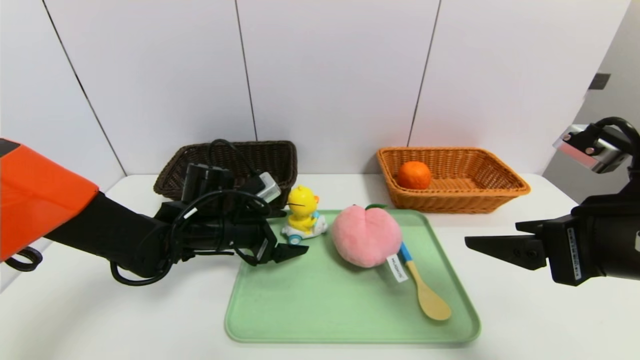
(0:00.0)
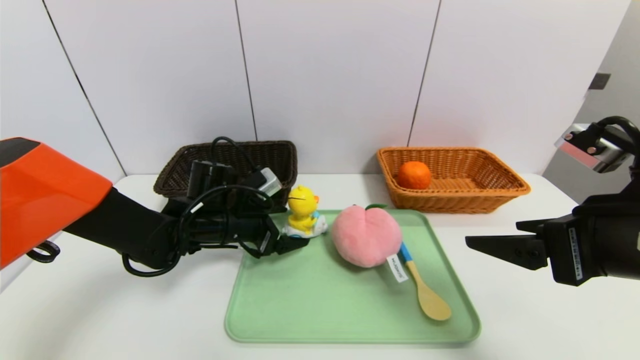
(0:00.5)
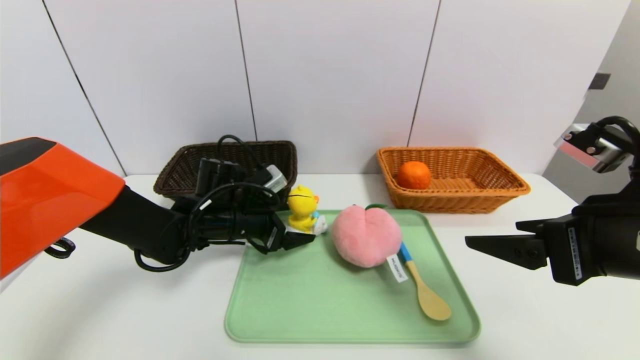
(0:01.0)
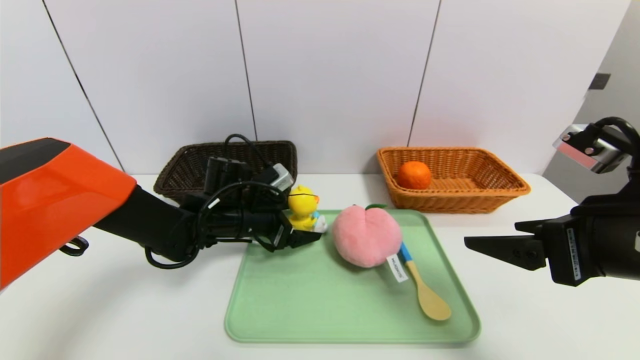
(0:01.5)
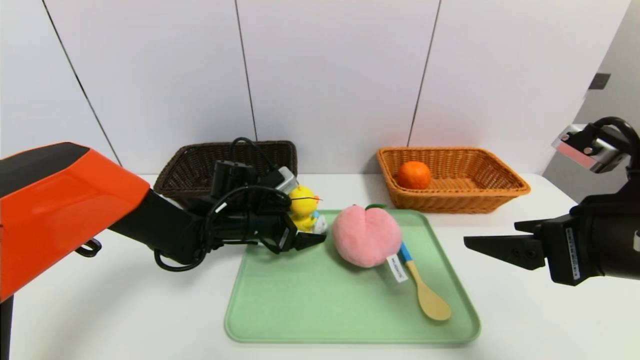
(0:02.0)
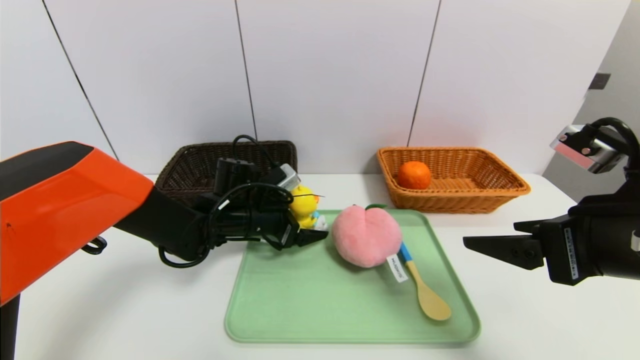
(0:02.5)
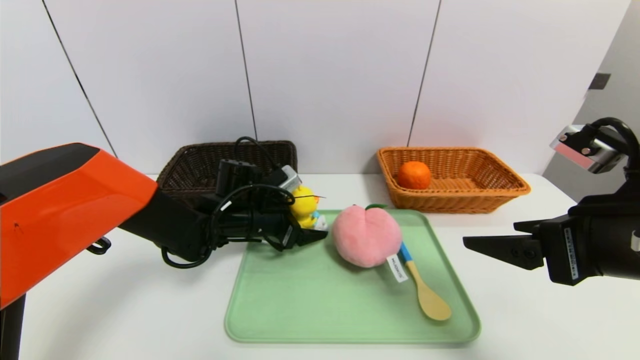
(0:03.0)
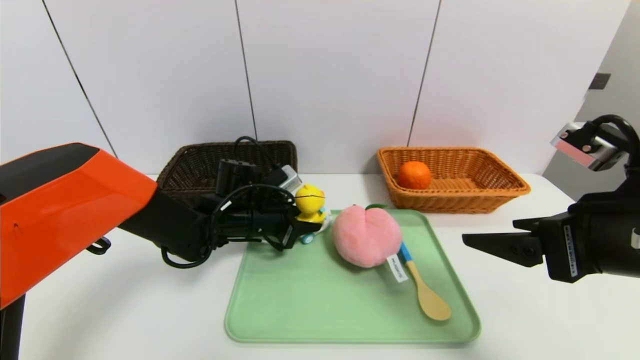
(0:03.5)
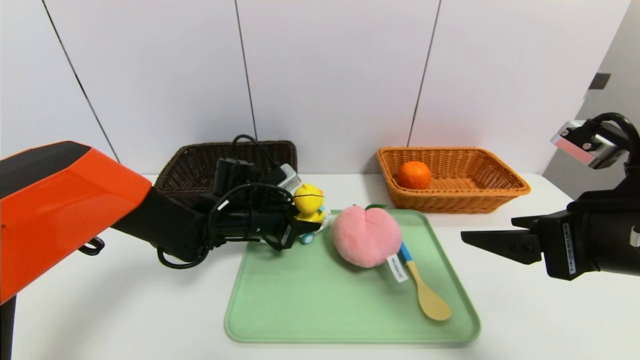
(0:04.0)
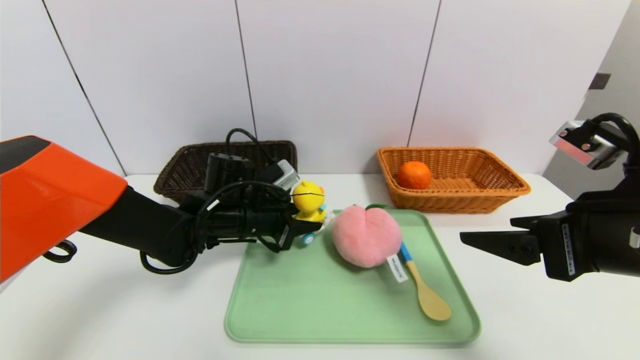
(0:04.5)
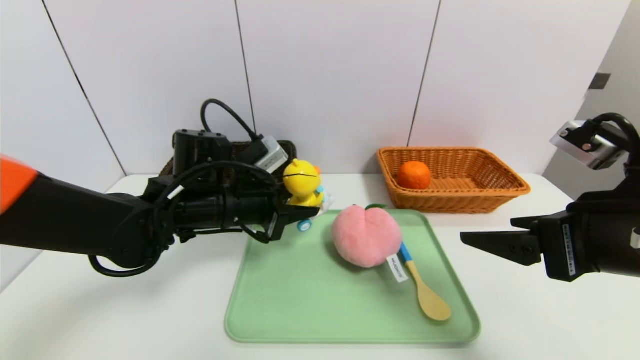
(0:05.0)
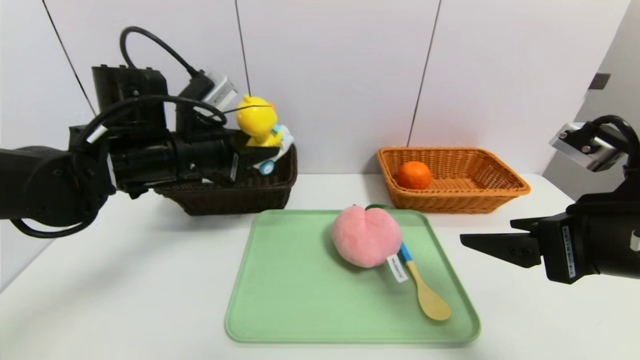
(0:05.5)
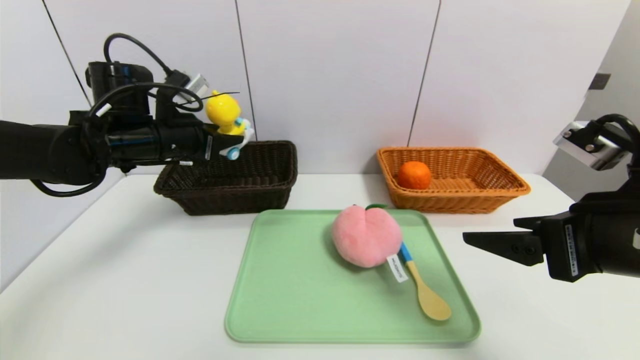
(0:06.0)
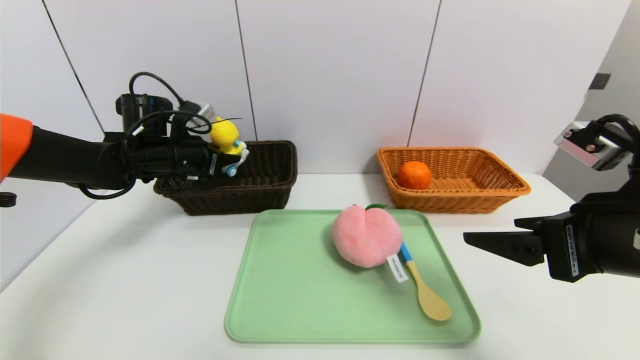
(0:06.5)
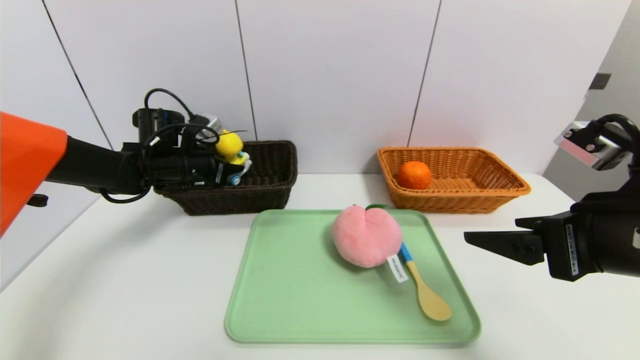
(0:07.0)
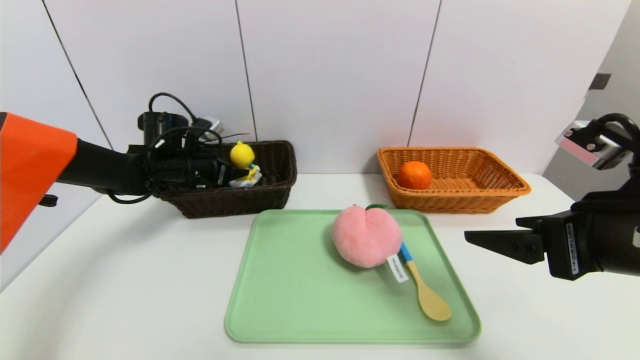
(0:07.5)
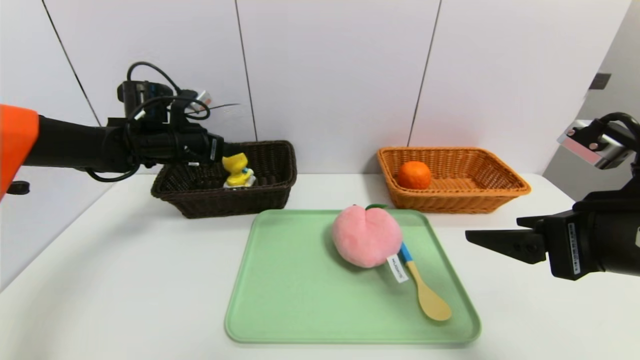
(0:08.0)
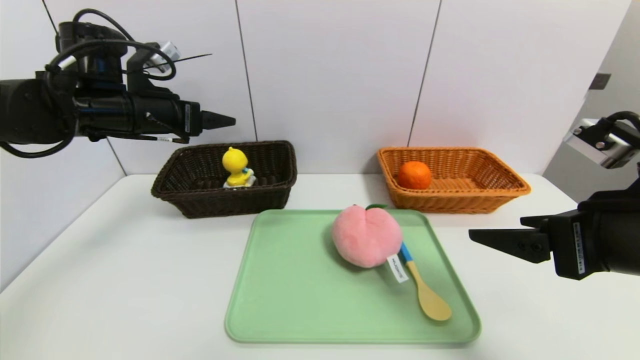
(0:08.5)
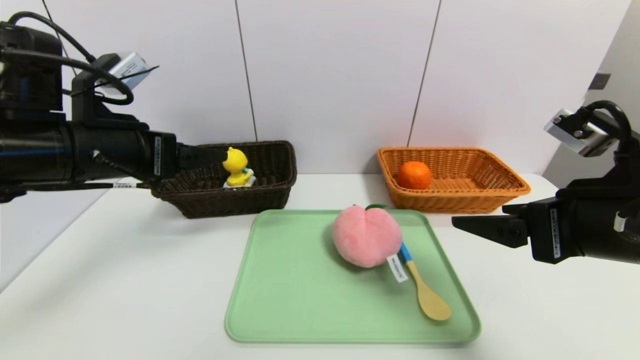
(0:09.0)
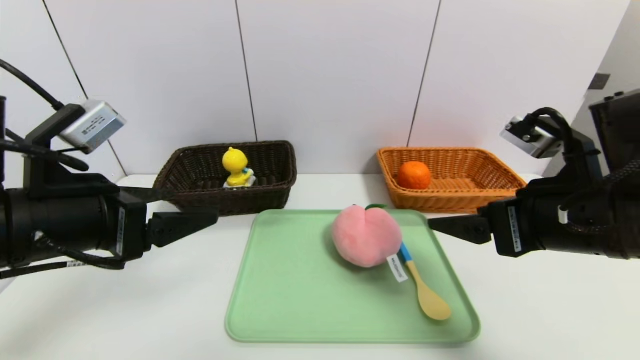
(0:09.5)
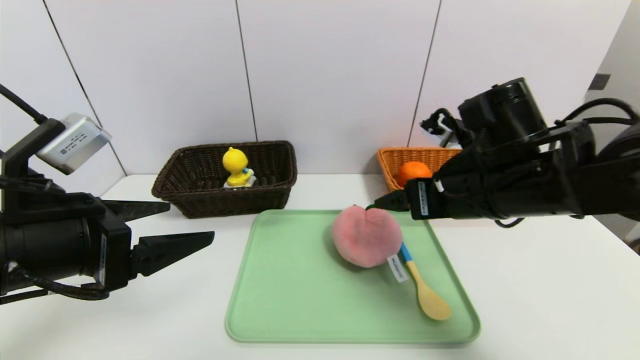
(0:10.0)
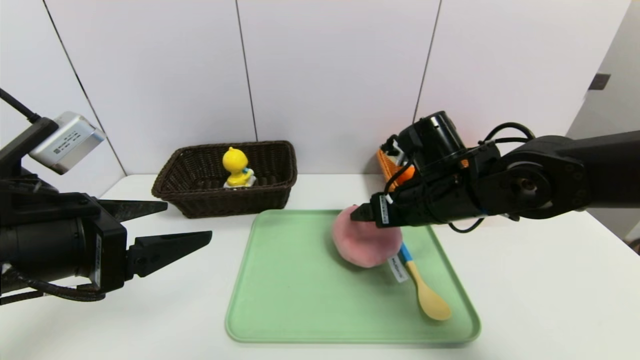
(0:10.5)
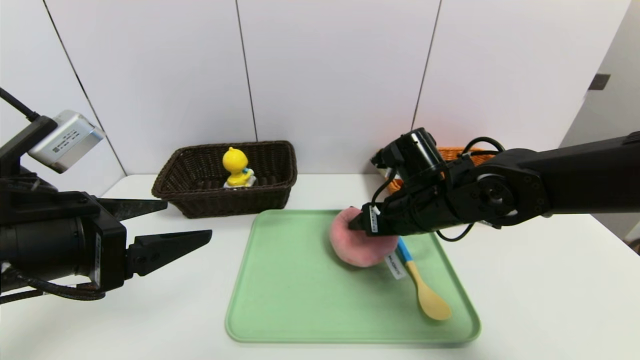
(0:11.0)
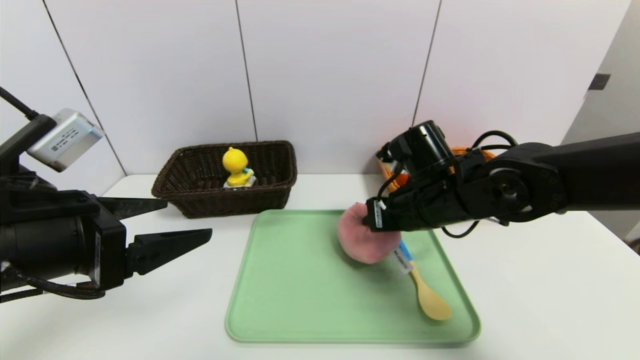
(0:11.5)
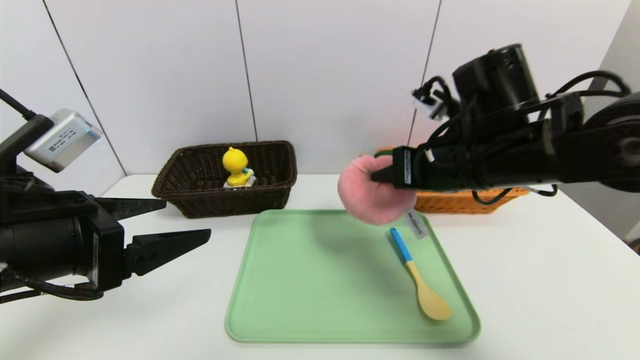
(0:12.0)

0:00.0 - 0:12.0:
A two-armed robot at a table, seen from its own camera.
Task of the whole recording: place the food in the right basket with the right gripper, and place the non food items in the left basket with the left gripper.
Step, 0:00.0 - 0:08.0: Grasp the duck toys and put it in the left basket.
0:00.0 - 0:02.0: The grippers move only a little.
0:02.0 - 0:04.0: The left gripper closes up.
0:04.0 - 0:06.0: The left gripper travels upward and to the left by roughly 20 cm.
0:06.0 - 0:08.0: The left gripper is displaced forward by approximately 5 cm, moves about 10 cm downward and comes back, and opens up.
0:08.0 - 0:10.0: The left gripper moves backward, approximately 25 cm. The right gripper moves forward and to the left, some 15 cm.
0:10.0 - 0:12.0: The right gripper closes.

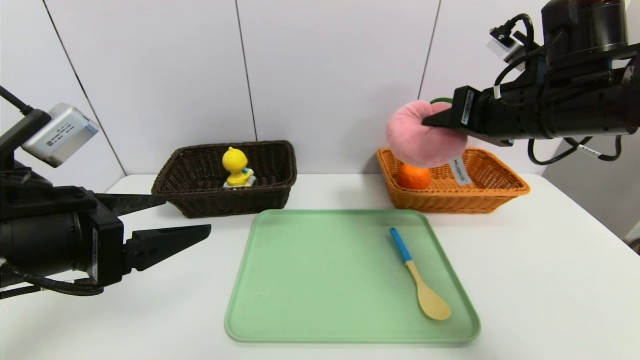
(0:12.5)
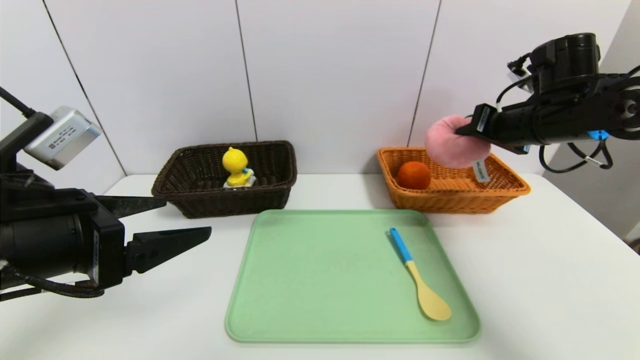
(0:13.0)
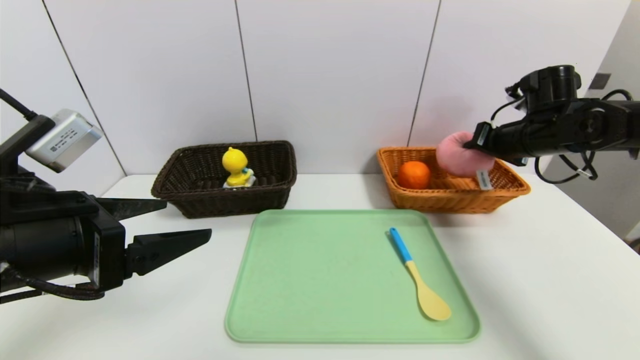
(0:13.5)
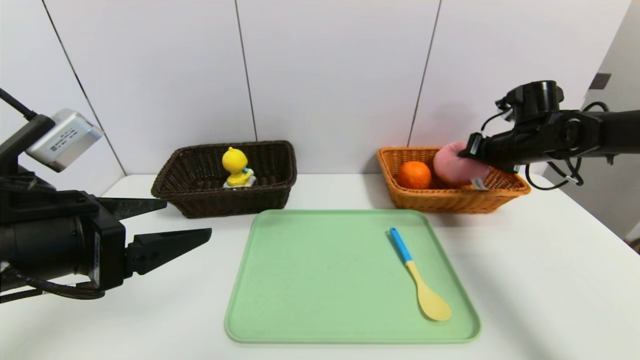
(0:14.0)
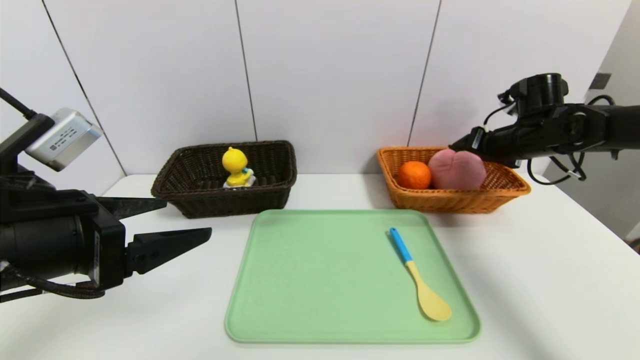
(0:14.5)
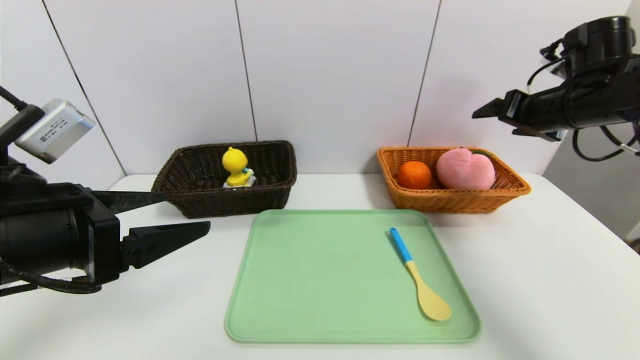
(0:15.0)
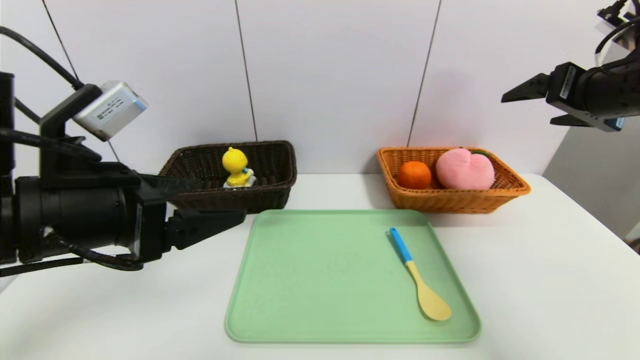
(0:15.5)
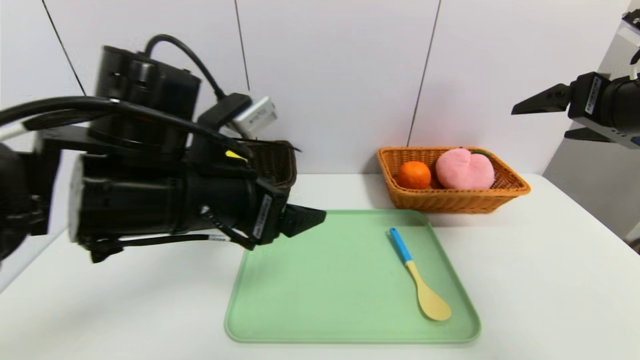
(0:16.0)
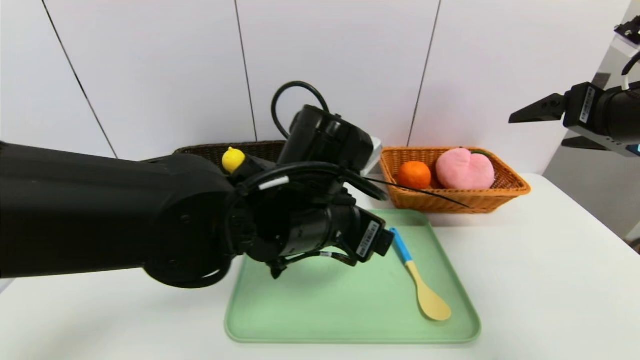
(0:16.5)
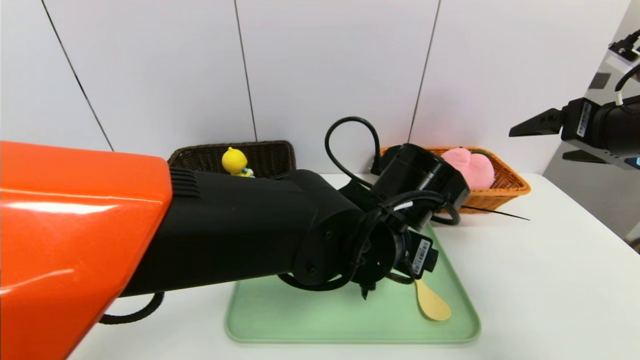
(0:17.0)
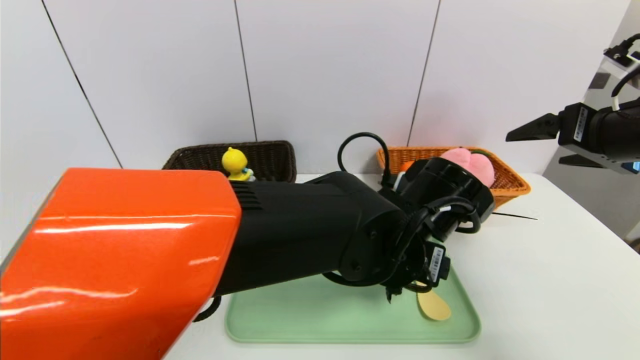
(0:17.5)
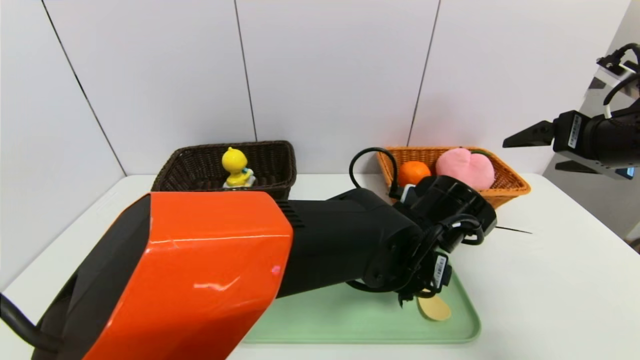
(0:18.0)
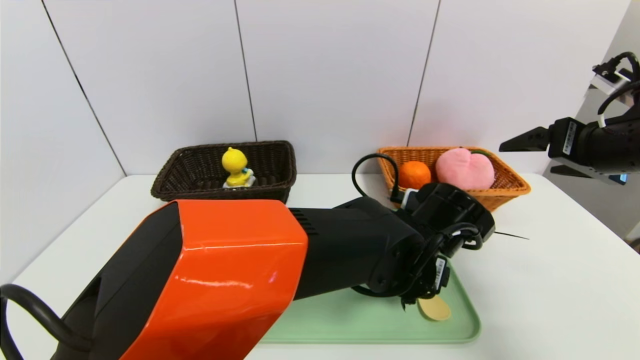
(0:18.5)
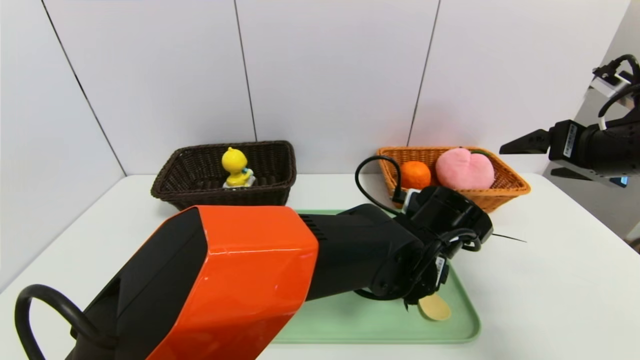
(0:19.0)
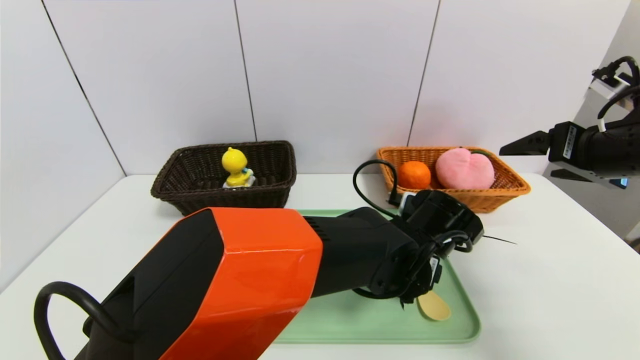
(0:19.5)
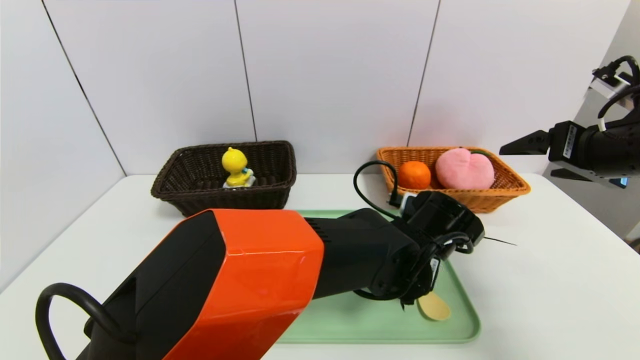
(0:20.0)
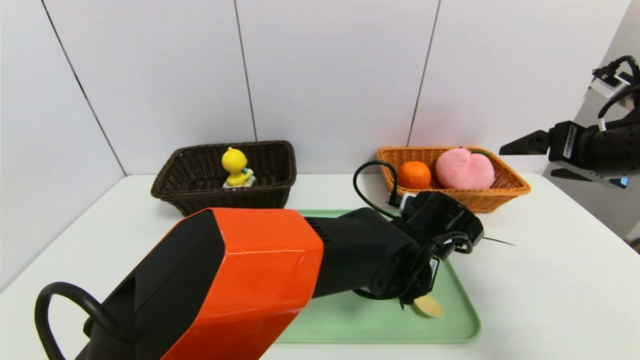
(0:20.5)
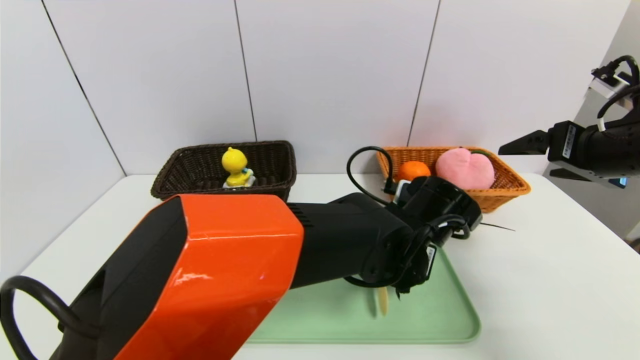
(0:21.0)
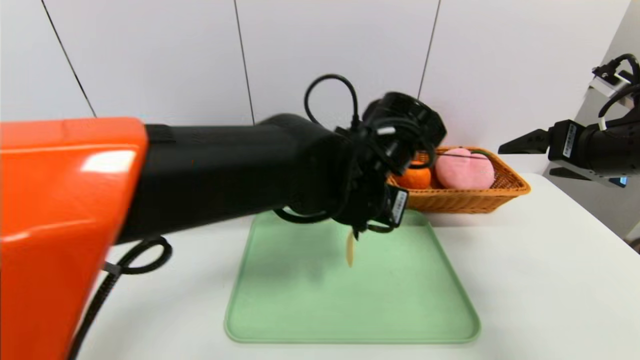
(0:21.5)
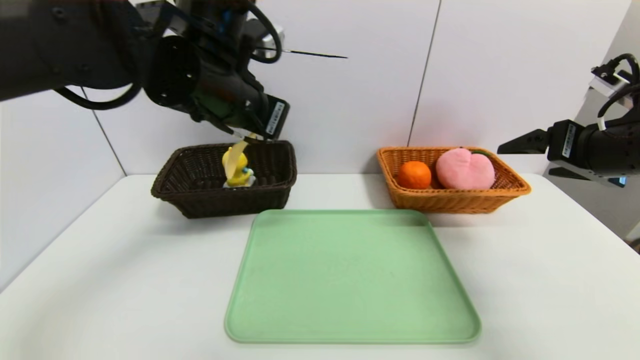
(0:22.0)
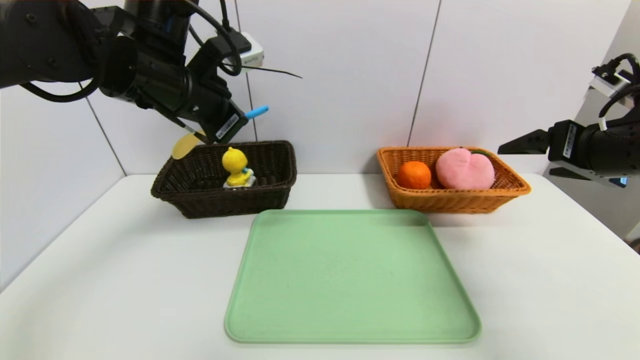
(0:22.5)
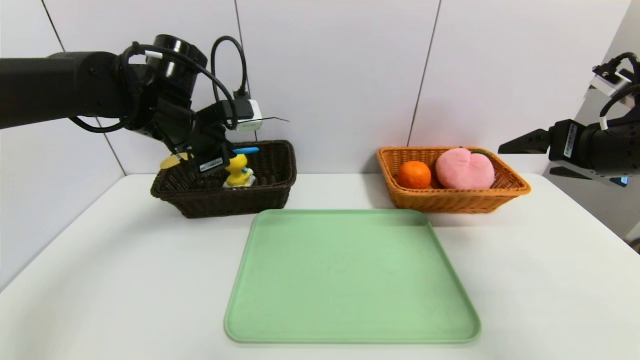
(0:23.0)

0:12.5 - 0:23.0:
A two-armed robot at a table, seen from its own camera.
Task of the whole recording: place the food in the right basket with the right gripper, and place the non food items in the left basket with the left gripper.
Step, 0:12.5 - 0:15.0: Grasp the peach doll and put it in the right basket.
0:12.5 - 0:14.5: The right gripper travels forward, to the right and downward by some 20 cm, and opens its fingers.
0:14.5 - 0:16.5: The left gripper goes some 20 cm to the right, while the right gripper shifts some 20 cm backward and upward.
0:16.5 - 0:19.0: The left gripper goes some 15 cm to the right and downward.
0:19.0 - 0:21.0: The left gripper closes up.
0:21.0 - 0:23.0: The left gripper shifts approximately 30 cm to the left and upward.
